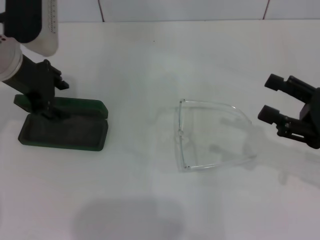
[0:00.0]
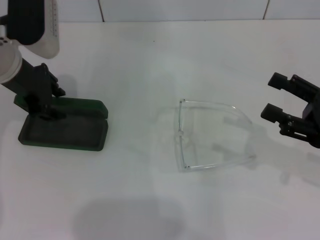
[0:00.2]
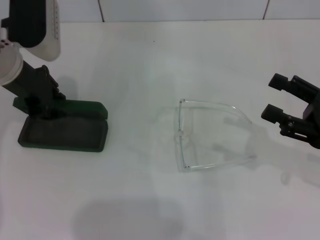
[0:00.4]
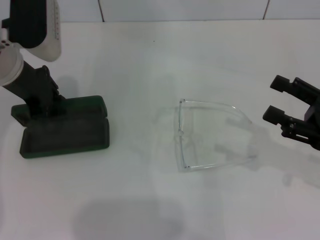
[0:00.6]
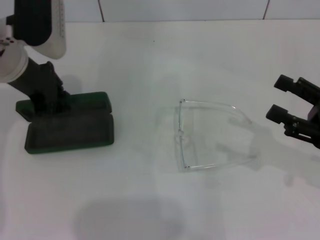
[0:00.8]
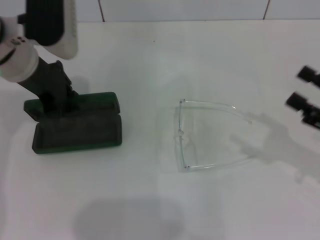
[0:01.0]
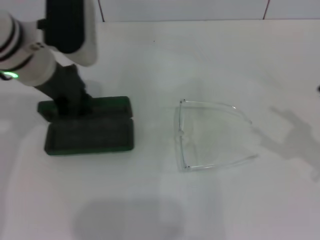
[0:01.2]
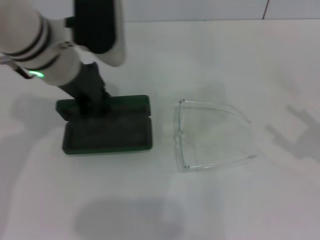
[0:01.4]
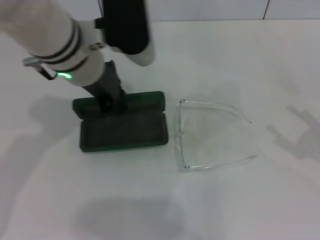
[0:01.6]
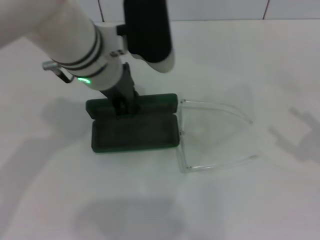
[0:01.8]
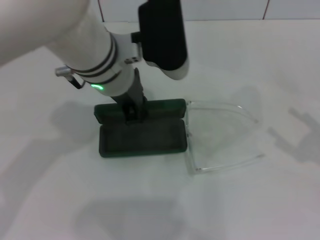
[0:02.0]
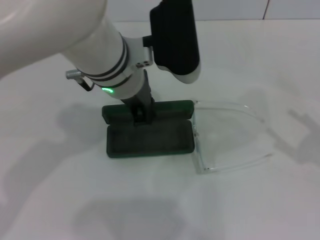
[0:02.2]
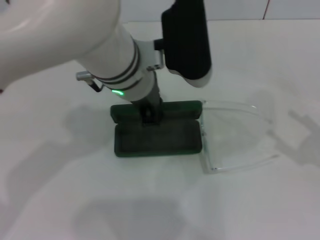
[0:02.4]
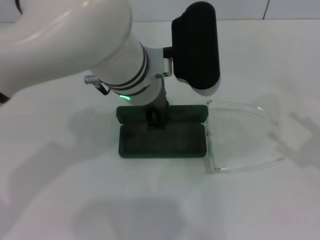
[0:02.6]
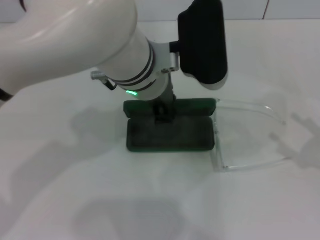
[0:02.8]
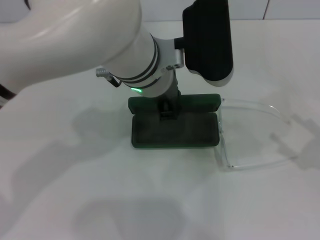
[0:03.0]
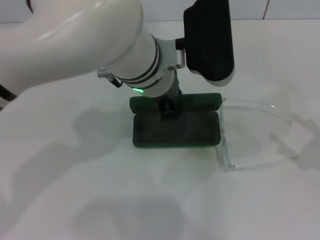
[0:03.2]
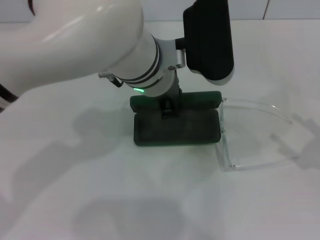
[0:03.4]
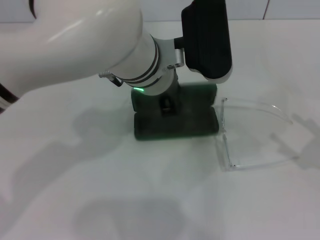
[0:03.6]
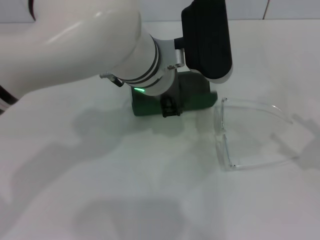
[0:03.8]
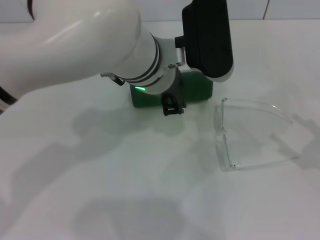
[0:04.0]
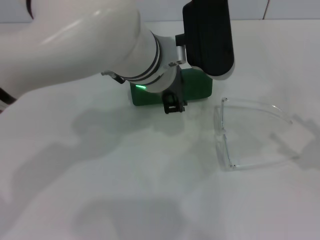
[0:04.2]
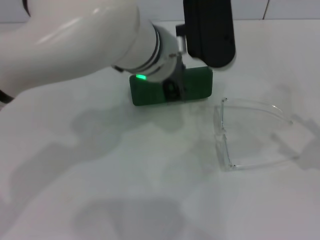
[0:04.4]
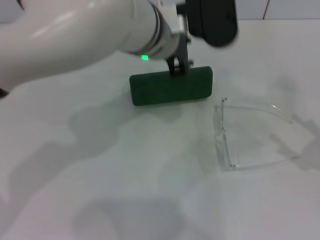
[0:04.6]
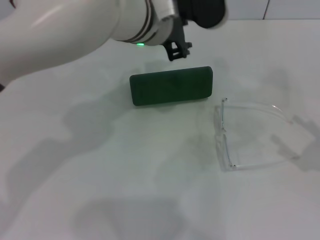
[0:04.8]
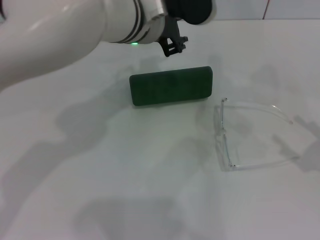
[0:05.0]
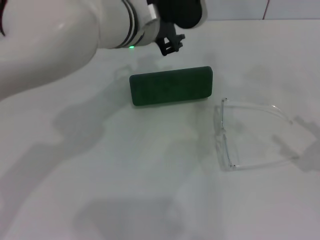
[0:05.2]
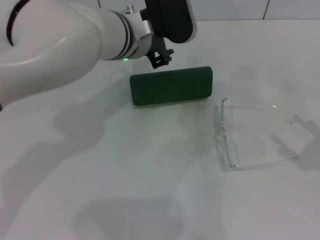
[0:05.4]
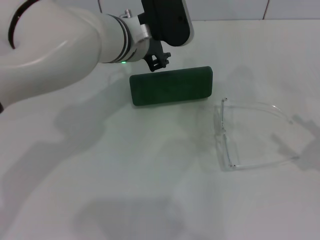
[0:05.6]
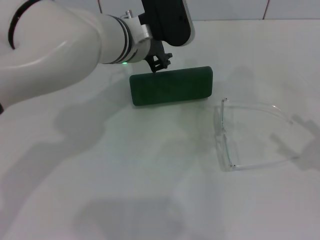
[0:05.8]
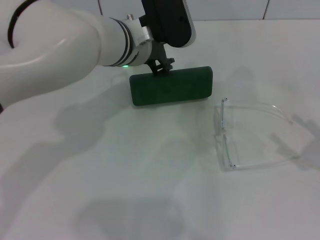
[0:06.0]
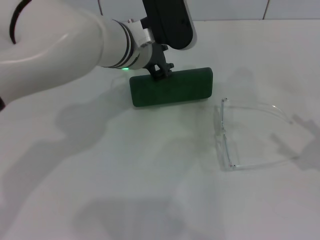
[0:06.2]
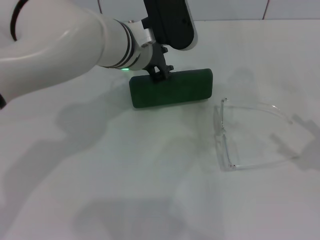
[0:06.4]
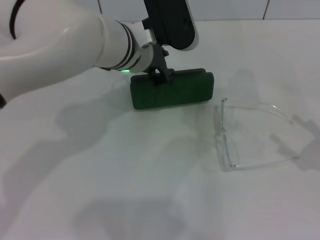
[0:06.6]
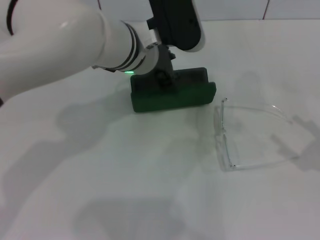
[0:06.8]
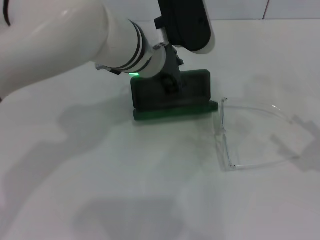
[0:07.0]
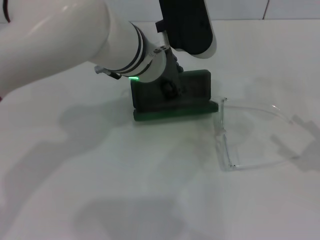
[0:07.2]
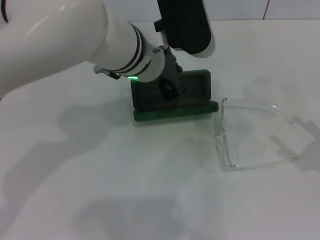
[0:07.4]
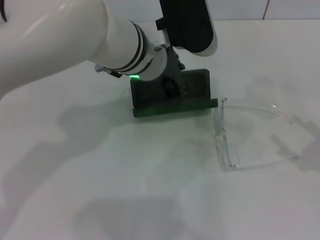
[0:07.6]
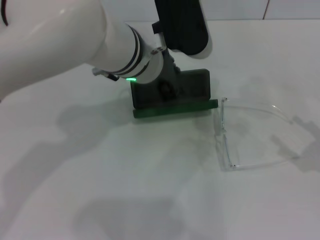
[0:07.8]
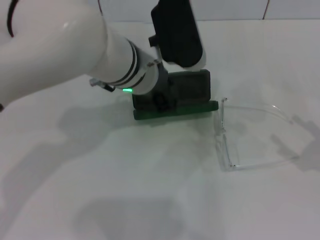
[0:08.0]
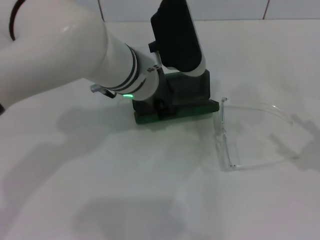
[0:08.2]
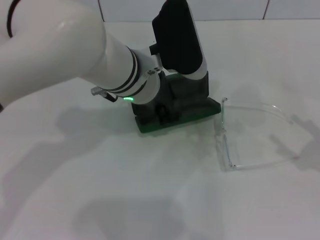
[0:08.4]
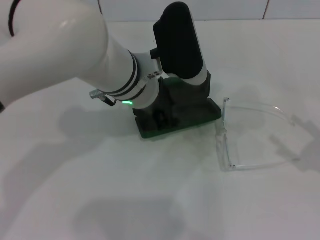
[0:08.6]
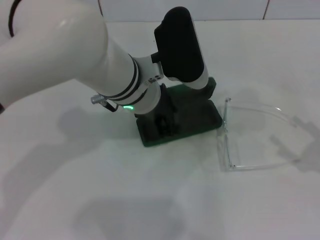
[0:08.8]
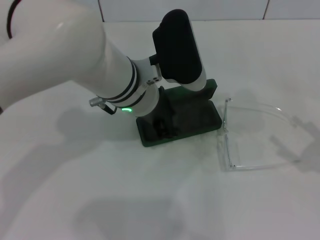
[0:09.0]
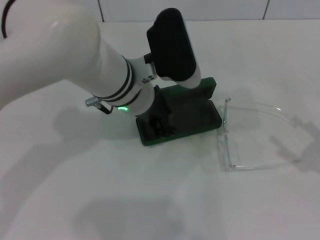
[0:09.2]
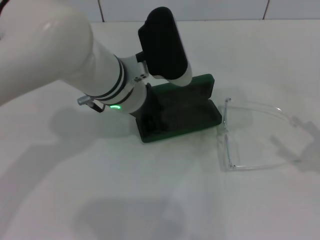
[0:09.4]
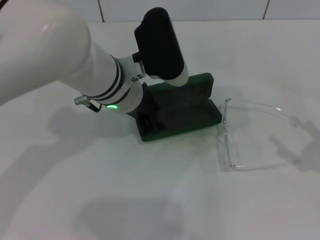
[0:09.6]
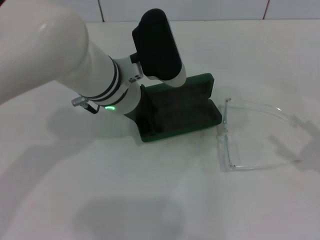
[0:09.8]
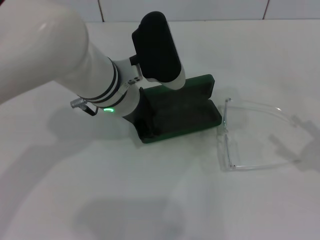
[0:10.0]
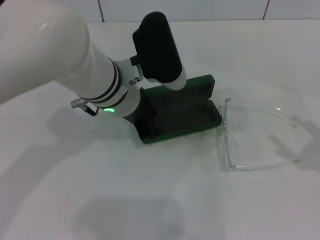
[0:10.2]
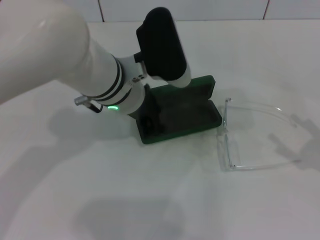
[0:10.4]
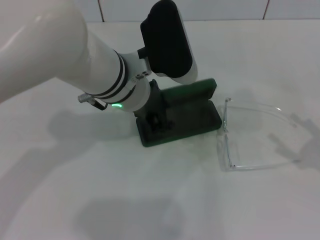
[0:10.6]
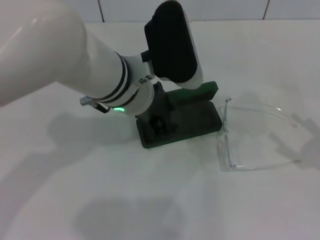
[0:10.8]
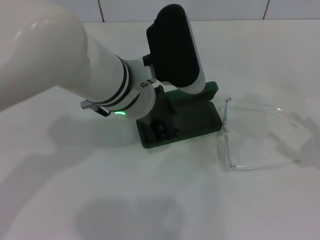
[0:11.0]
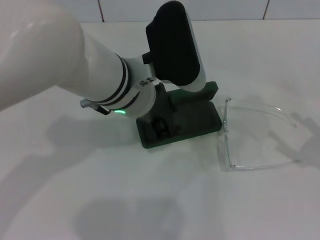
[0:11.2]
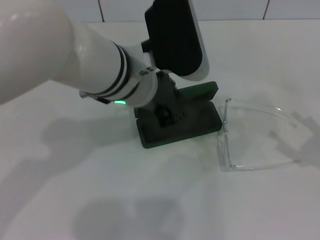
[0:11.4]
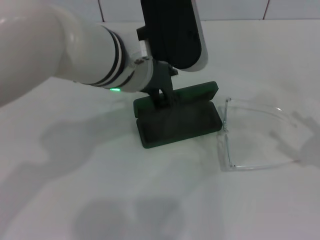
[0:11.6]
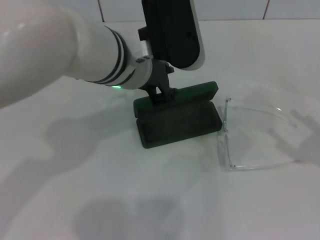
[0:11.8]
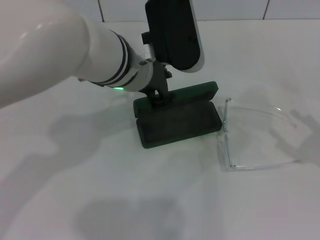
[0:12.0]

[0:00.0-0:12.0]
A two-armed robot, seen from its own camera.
0:00.0 to 0:01.6: The right gripper heads to the right, covering roughly 5 cm, while the left gripper travels to the right by about 10 cm, and closes up.
0:01.6 to 0:03.0: The left gripper moves to the right, some 10 cm.
0:03.0 to 0:04.4: The grippers make only small movements.
0:04.4 to 0:06.0: The left gripper changes place by about 5 cm.
0:06.0 to 0:07.6: The grippers stay close to where they were, moving slightly.
0:07.6 to 0:12.0: There are only small adjustments of the grippers.

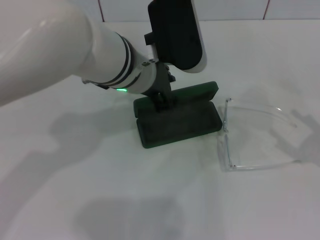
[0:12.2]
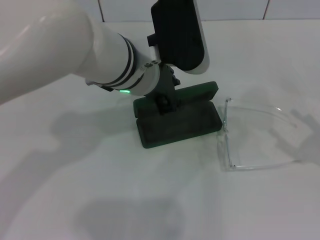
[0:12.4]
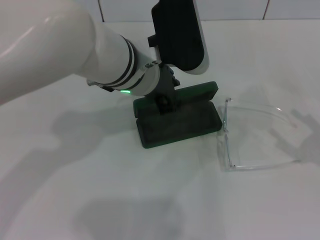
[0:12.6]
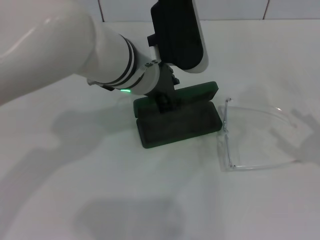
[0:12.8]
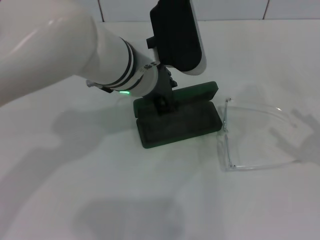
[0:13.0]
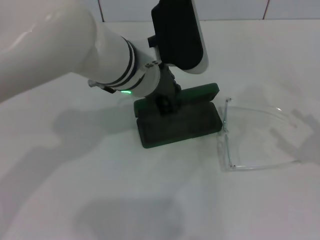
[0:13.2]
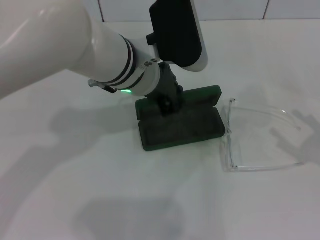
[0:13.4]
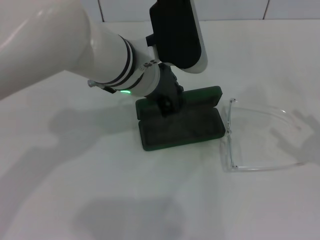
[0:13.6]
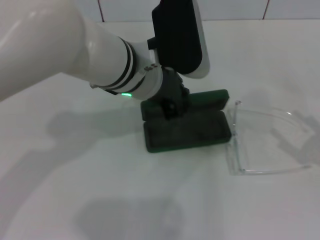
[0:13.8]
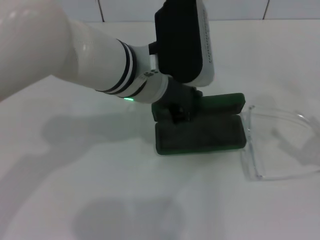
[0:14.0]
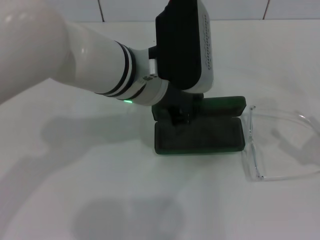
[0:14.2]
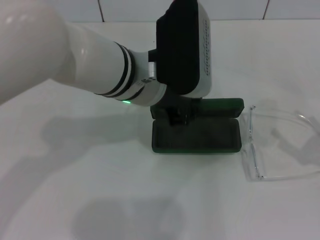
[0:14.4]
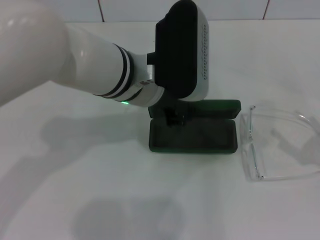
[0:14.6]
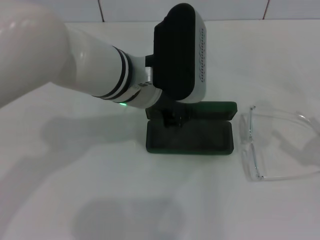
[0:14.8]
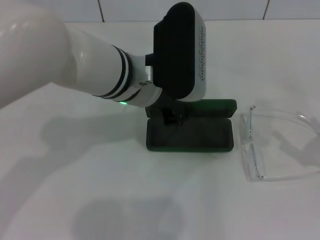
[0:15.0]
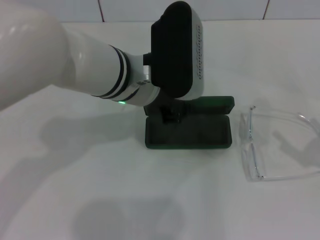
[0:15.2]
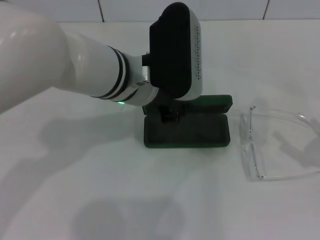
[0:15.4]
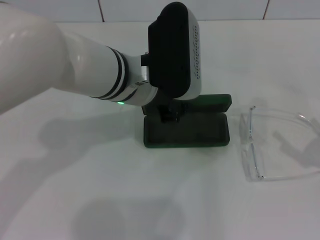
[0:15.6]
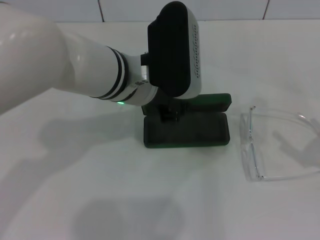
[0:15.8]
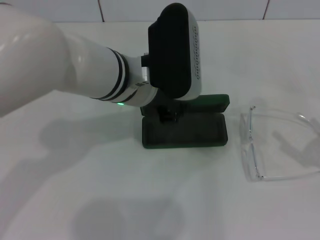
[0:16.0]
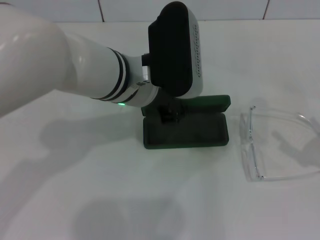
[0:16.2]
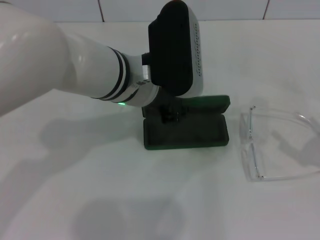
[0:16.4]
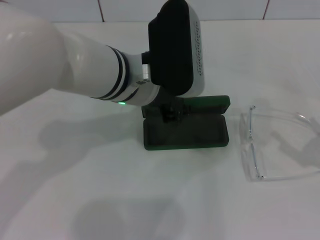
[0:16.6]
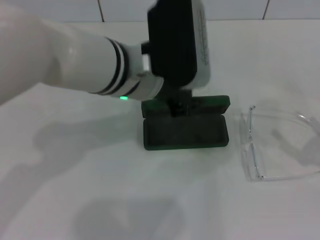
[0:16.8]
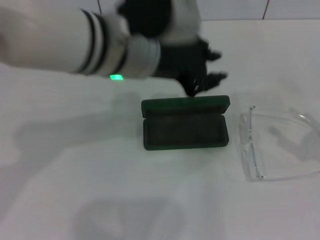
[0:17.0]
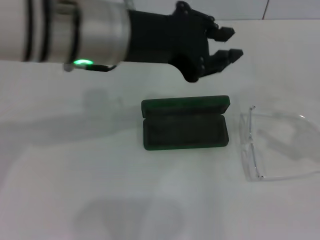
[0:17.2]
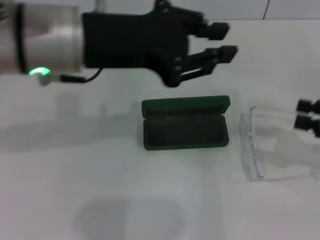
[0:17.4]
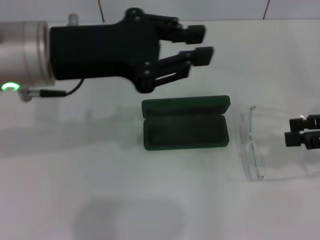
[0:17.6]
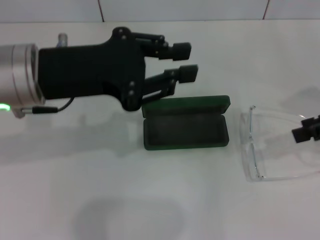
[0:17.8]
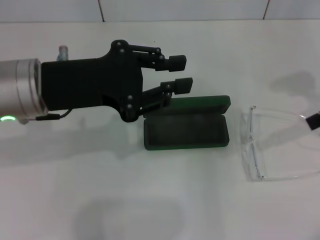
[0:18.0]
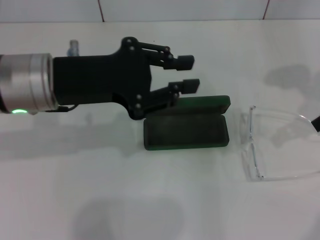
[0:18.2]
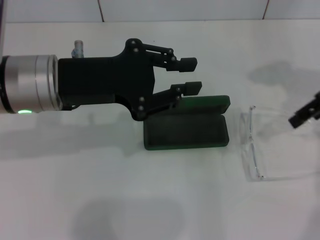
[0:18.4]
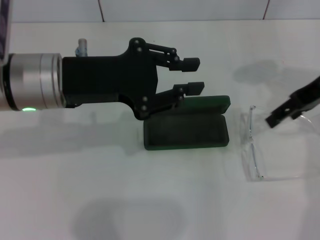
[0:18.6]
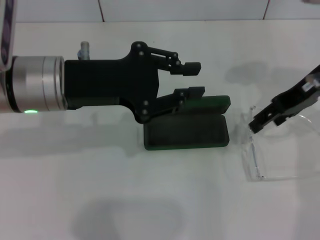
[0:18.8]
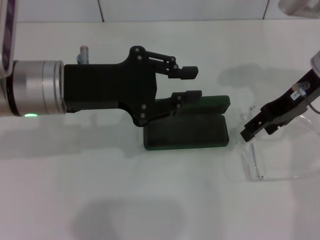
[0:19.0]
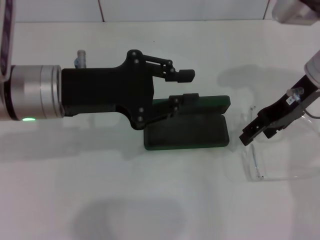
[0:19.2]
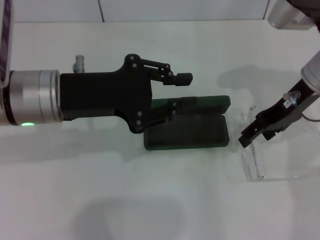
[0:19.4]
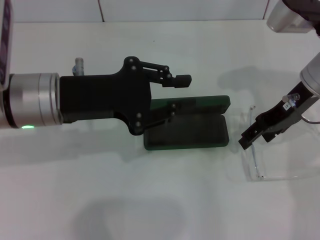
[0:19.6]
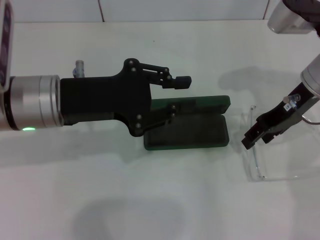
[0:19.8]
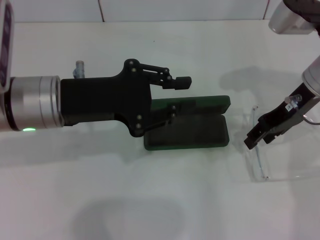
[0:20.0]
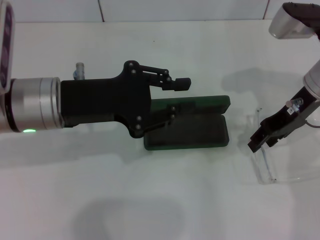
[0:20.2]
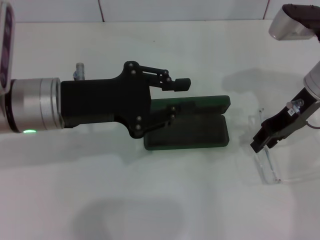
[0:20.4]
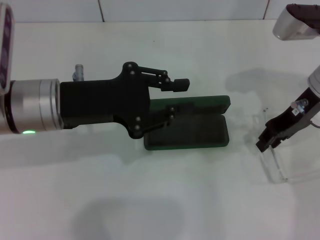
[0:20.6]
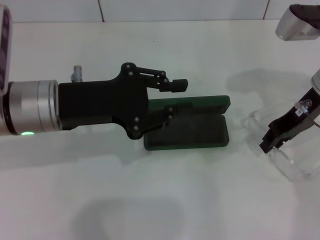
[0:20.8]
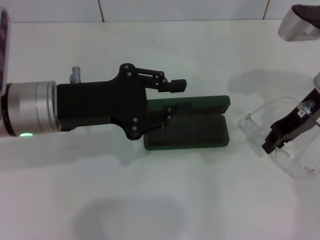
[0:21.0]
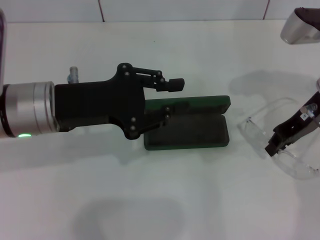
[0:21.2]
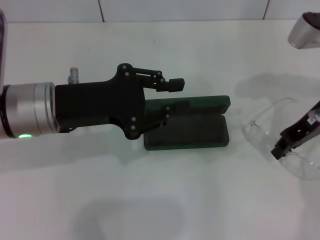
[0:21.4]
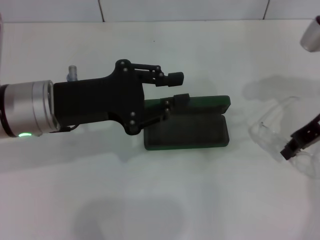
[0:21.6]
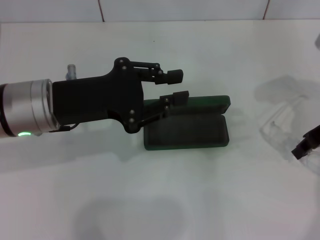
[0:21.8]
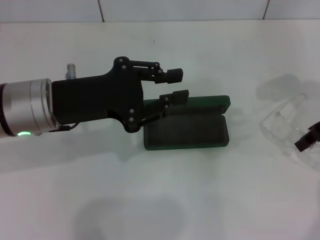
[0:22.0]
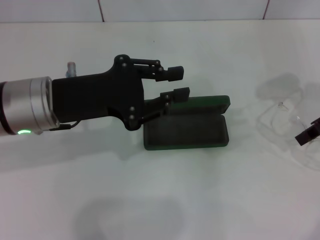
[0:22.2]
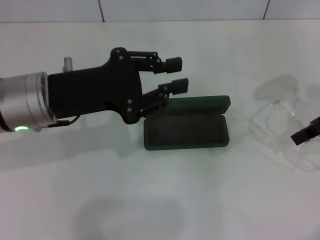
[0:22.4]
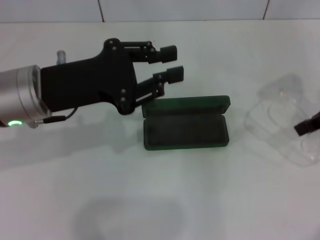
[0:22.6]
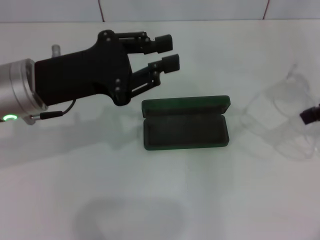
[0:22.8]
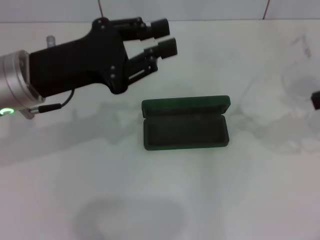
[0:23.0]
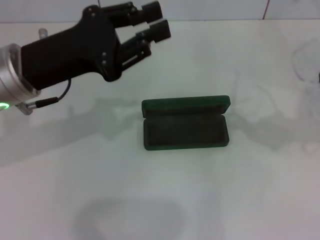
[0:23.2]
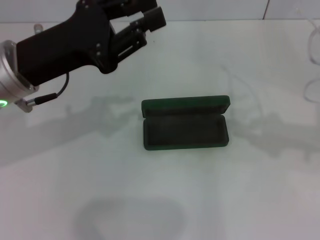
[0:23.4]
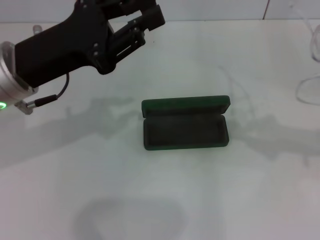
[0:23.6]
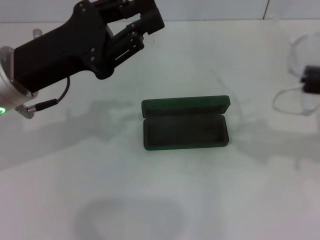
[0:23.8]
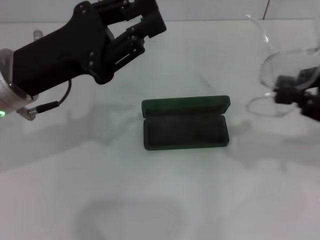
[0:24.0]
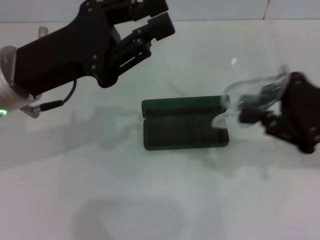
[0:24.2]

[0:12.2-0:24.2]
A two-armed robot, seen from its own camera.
Step, 0:12.2 to 0:16.4: Place the glasses case in the center of the table with your left hand.
Step, 0:16.8 to 0:21.6: Grab the eyeglass frame with your right hand.
0:12.2 to 0:15.2: The grippers stay close to where they were, moving slightly.
0:15.2 to 0:16.6: The two grippers keep their place.
0:16.6 to 0:18.2: The left gripper travels to the left by approximately 10 cm. The right gripper goes approximately 25 cm upward and forward.
0:18.2 to 0:19.8: The right gripper is displaced to the left and downward by roughly 15 cm.
0:19.8 to 0:21.2: The right gripper closes up.
0:21.2 to 0:22.6: The right gripper shifts about 5 cm to the right.
0:22.6 to 0:24.2: The right gripper goes some 5 cm backward.
